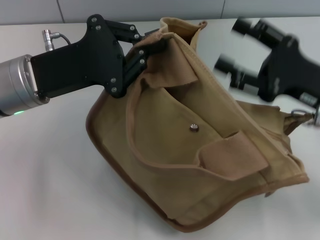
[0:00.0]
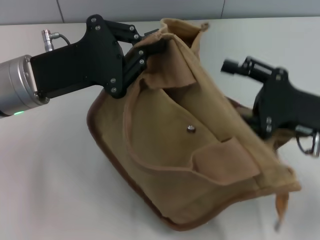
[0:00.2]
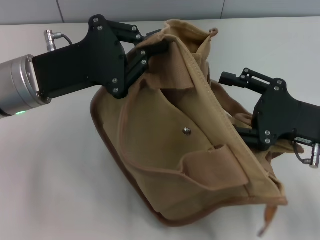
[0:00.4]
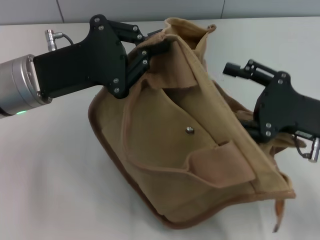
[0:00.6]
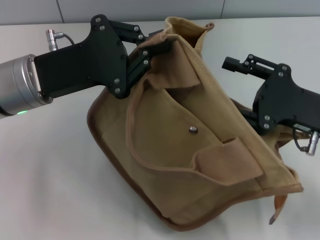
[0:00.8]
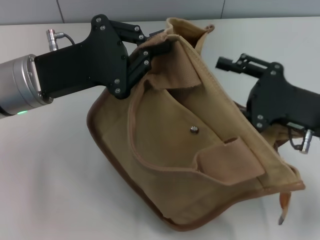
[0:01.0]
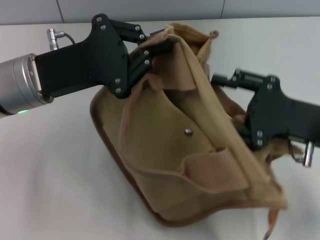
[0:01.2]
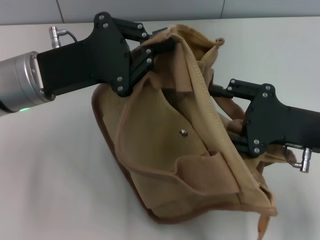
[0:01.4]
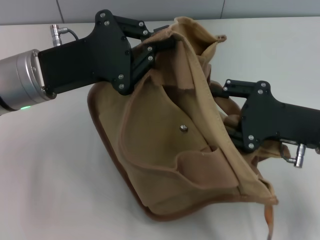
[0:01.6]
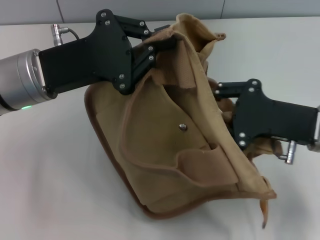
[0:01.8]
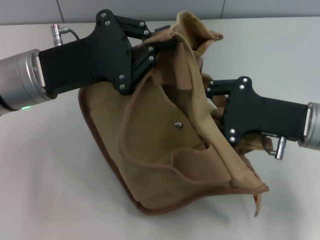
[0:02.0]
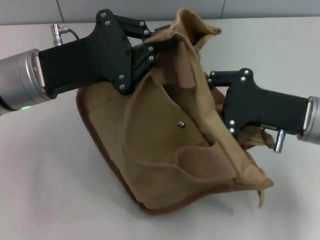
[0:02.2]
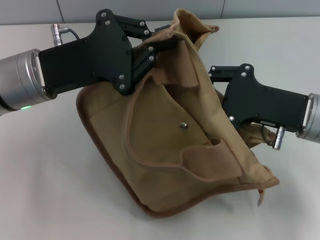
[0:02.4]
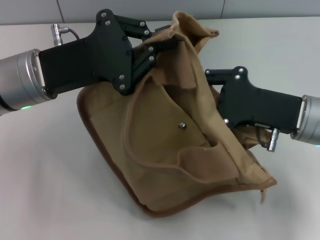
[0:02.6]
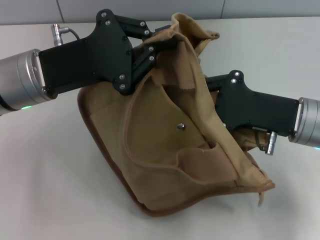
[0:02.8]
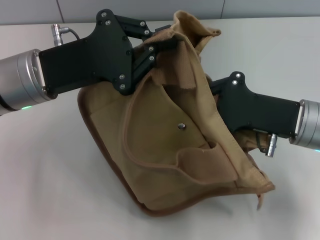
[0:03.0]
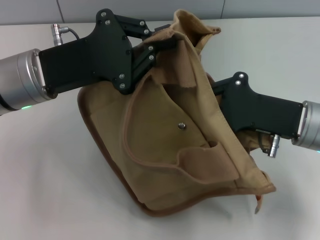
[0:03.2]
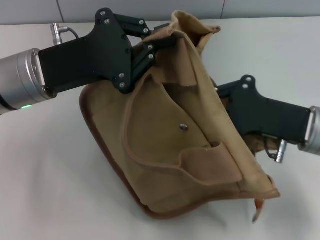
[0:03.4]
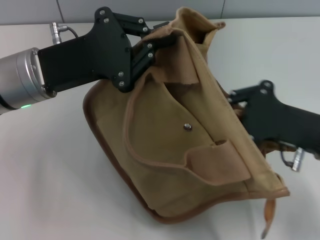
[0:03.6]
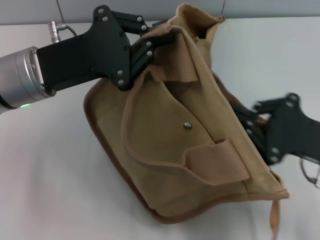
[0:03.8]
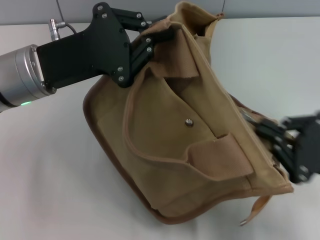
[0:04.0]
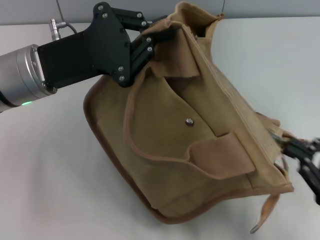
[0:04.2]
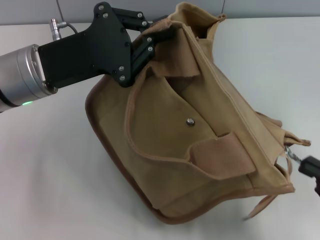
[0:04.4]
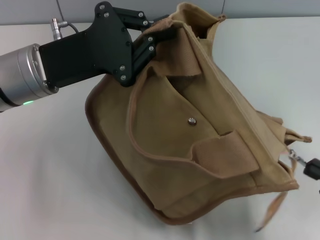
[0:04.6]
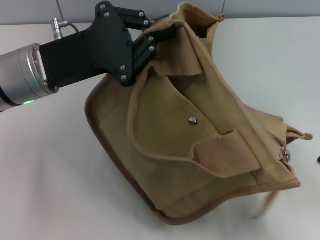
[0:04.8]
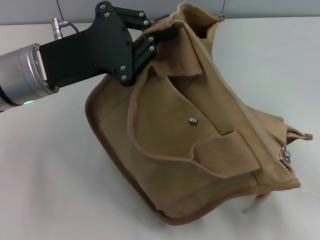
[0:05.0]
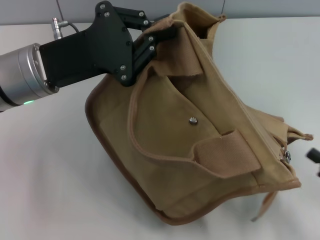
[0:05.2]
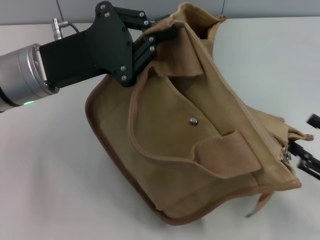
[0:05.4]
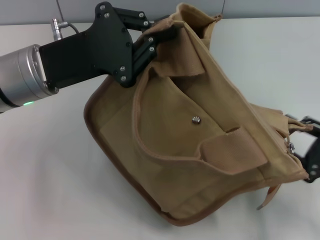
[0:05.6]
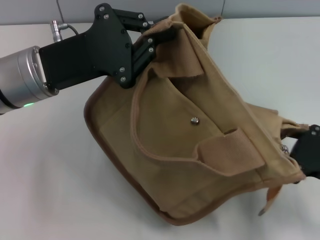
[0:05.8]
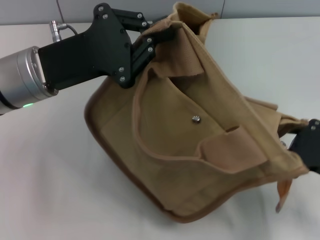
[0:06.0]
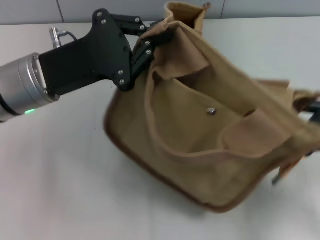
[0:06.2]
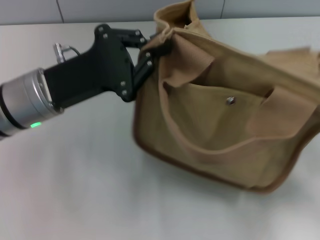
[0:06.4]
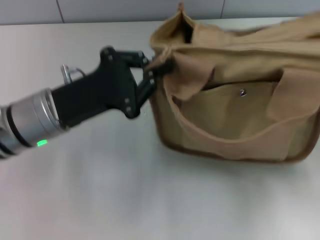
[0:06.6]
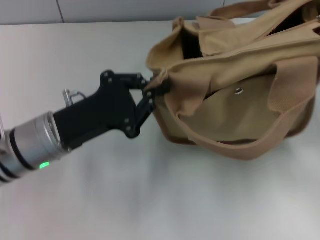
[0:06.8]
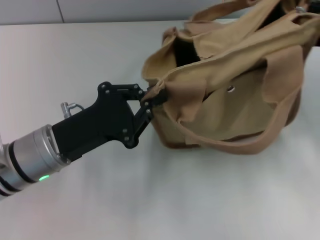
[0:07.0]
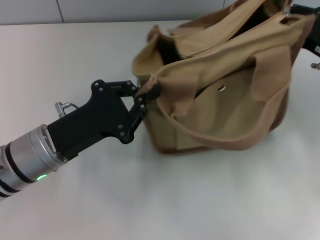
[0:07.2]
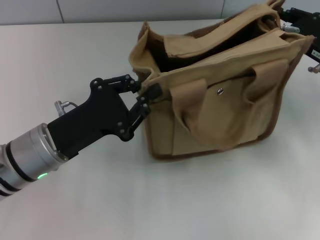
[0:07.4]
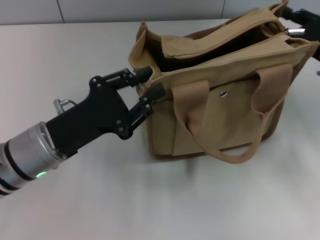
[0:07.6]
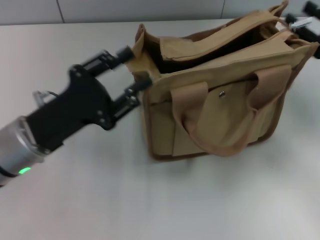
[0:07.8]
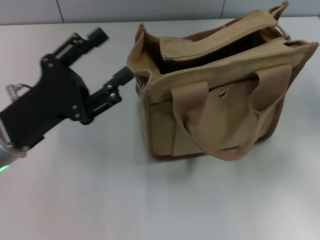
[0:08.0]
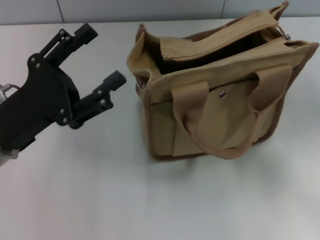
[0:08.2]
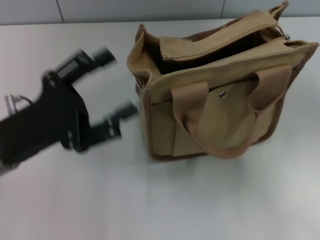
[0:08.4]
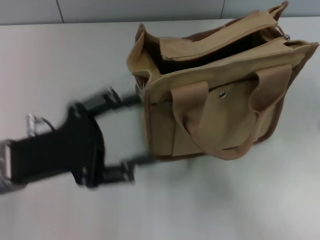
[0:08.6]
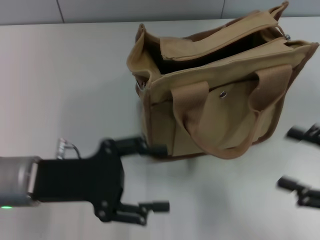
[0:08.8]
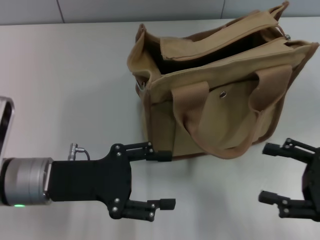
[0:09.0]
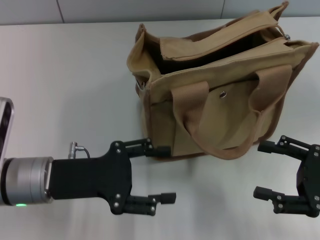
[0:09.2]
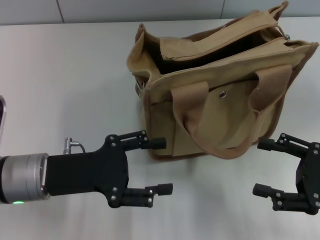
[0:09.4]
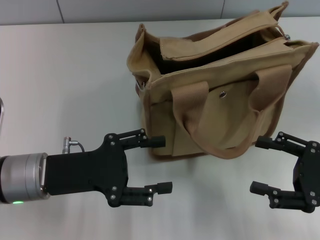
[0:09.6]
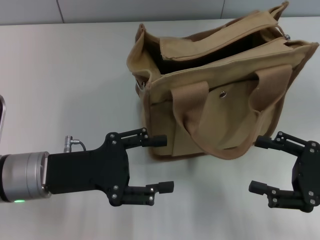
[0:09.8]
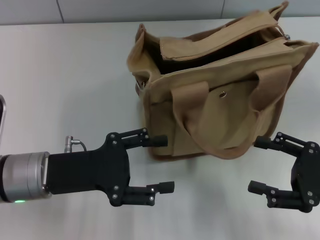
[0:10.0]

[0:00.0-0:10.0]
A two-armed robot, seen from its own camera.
Step, 0:00.0 to 0:04.6: Pull open the zipper with your right hand.
Step, 0:04.8 to 0:07.6: Grab the bag with your left hand.
0:01.4 to 0:02.8: The right gripper closes up.
0:02.8 to 0:04.2: The right gripper heads backward and to the right, covering approximately 15 cm.
0:04.2 to 0:05.8: The right gripper shifts by about 5 cm, and opens its fingers.
0:05.8 to 0:07.2: The left gripper shifts approximately 10 cm downward and backward, while the right gripper goes some 15 cm forward and upward, and closes.
0:07.2 to 0:08.6: The right gripper heads backward, covering roughly 15 cm, and opens its fingers. Meanwhile the left gripper opens up.
0:08.6 to 0:10.0: The right gripper moves some 5 cm.
